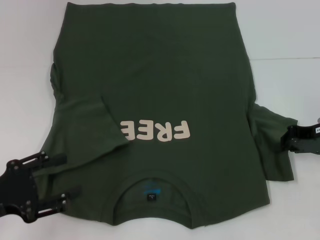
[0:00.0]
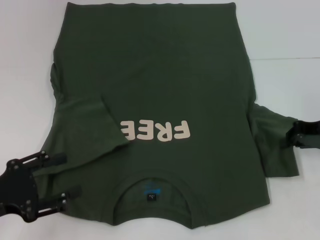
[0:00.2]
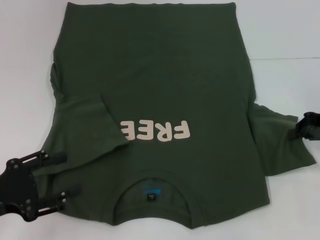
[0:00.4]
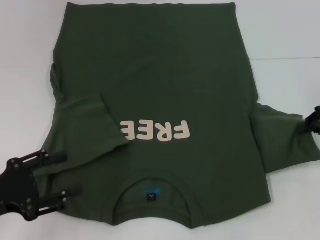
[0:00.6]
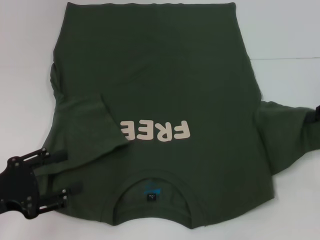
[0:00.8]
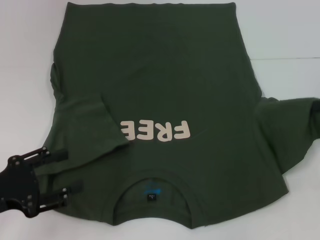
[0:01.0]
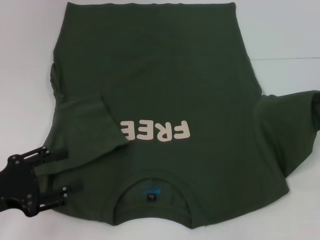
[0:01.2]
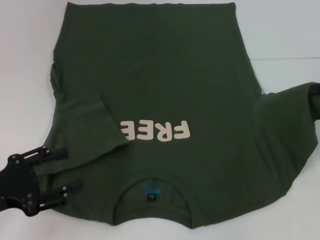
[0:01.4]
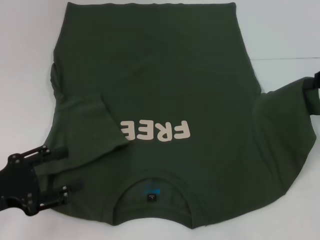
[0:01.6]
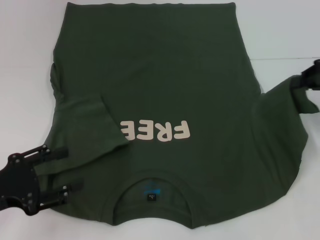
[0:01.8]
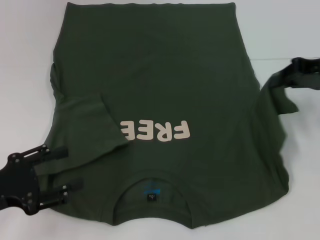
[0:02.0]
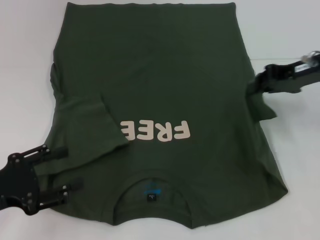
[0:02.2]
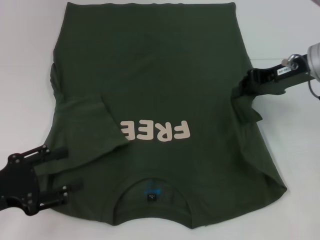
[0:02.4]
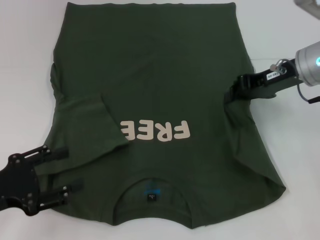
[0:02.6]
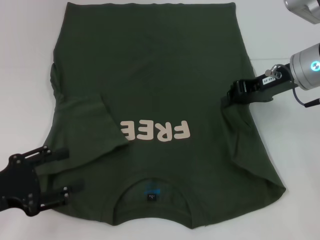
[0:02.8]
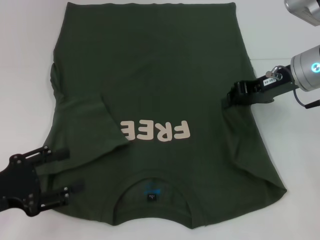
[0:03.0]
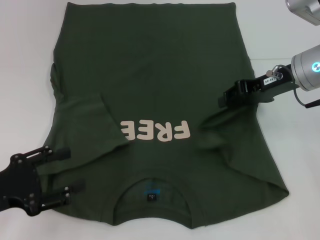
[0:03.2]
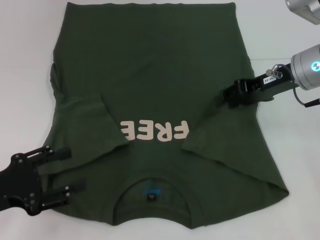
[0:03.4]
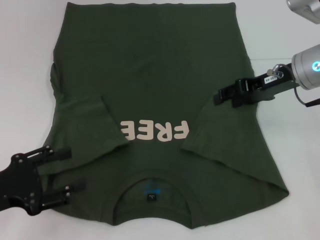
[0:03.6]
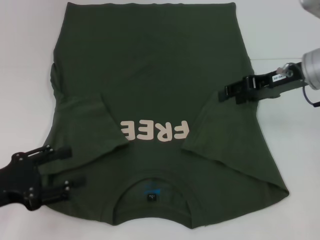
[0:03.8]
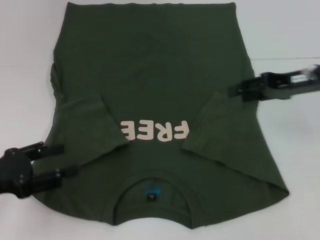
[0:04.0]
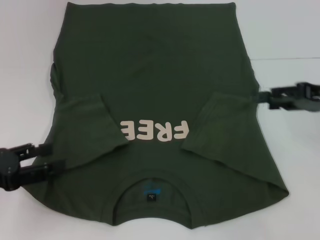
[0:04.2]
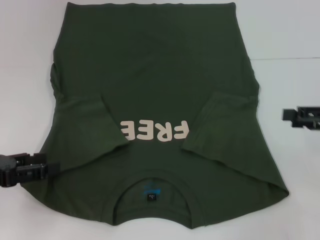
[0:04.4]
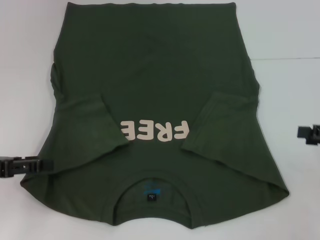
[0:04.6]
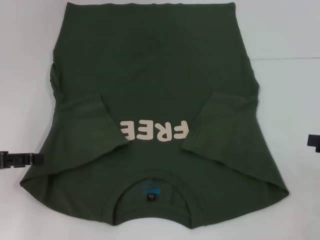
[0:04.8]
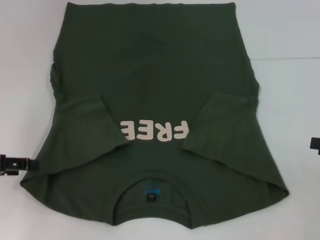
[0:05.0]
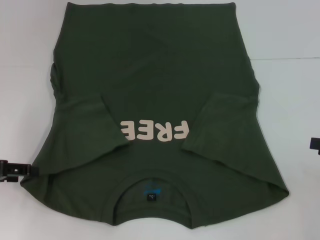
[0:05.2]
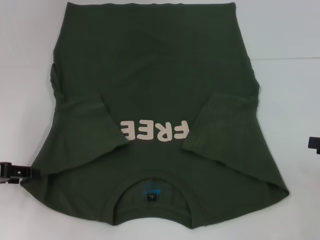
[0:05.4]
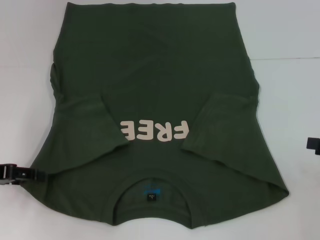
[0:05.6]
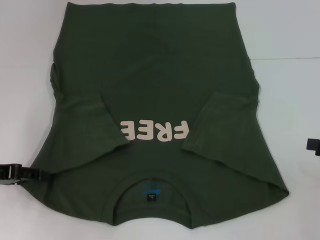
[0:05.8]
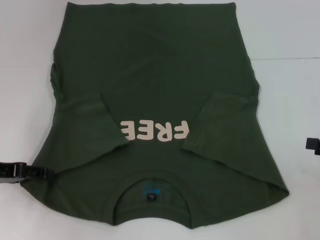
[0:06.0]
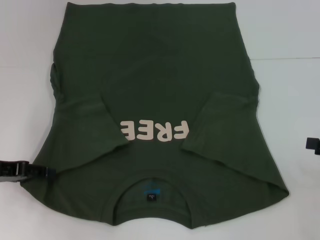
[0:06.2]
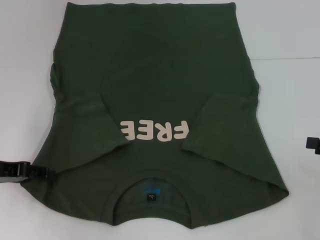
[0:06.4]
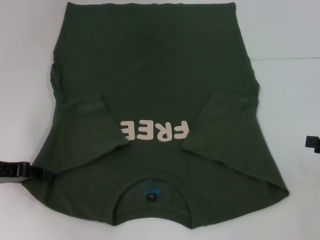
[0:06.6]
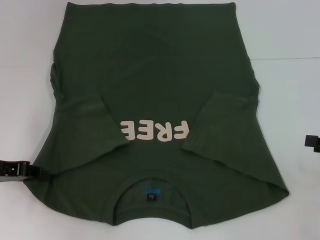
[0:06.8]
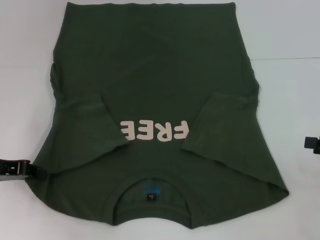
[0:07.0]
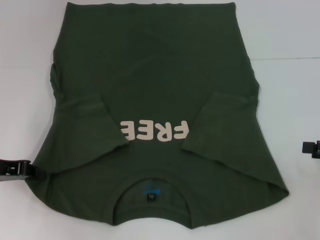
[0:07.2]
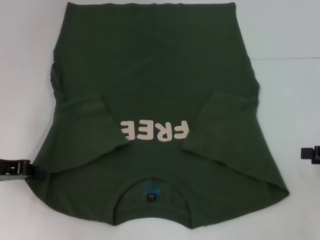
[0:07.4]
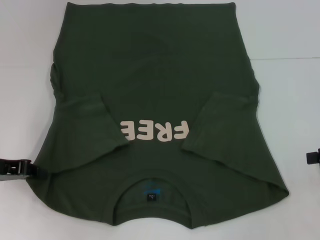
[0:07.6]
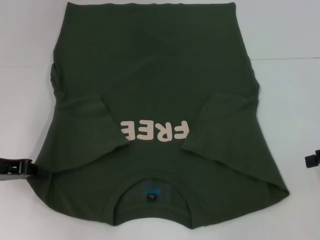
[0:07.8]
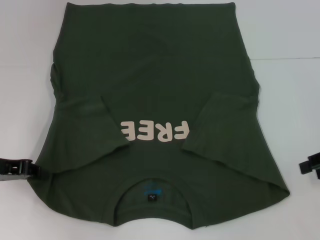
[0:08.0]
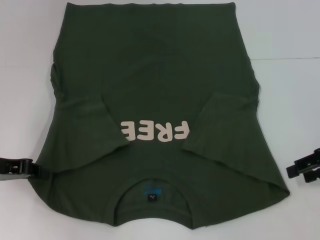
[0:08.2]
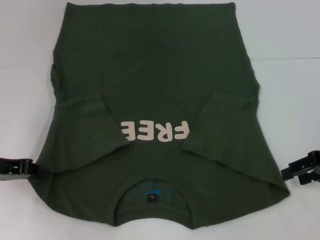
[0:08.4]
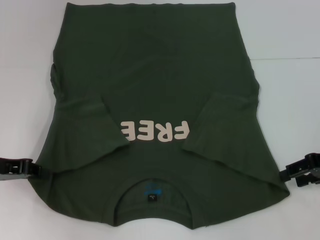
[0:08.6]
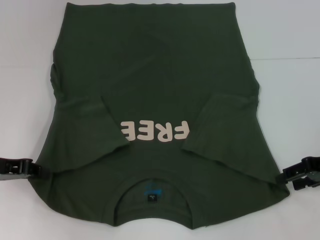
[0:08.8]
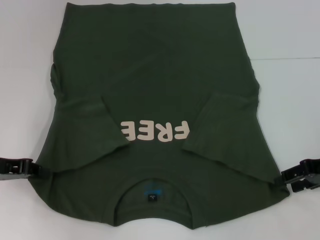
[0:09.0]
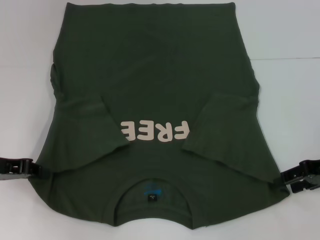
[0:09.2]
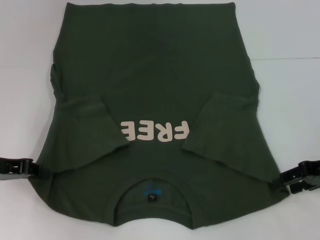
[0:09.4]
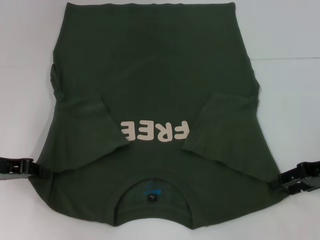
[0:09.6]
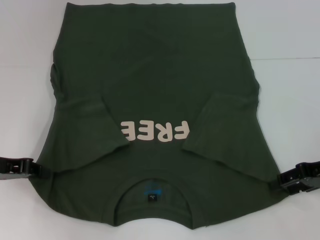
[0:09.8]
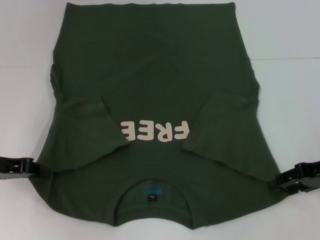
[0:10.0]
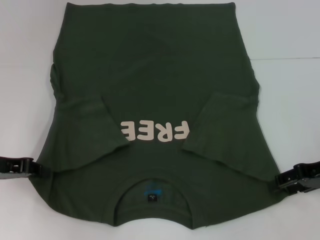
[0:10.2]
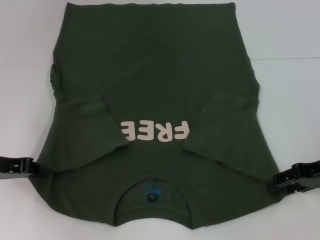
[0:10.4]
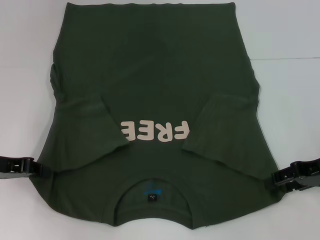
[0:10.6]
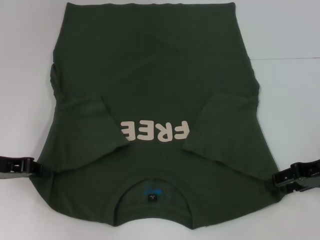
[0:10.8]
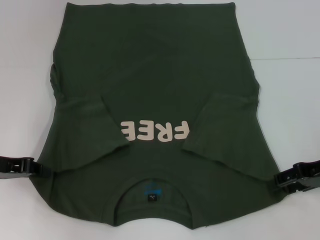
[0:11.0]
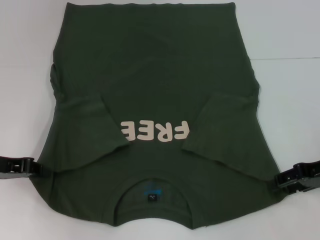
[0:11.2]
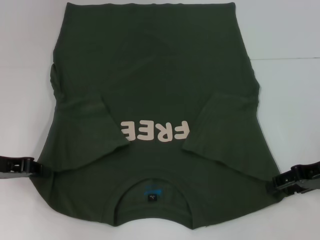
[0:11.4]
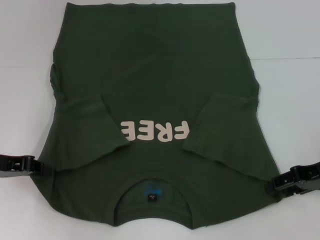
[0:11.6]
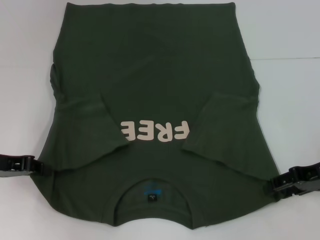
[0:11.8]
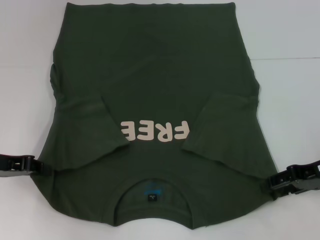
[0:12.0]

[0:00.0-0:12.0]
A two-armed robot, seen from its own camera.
Step, 0:00.0 to 0:03.4: Fold the bottom right sleeve with your right hand.
Step, 0:03.6 to 0:07.8: Grab the bottom left corner with your left hand.
0:00.0 to 0:01.6: The right gripper shifts about 10 cm upward.
0:01.6 to 0:03.0: The right gripper moves to the left, about 15 cm.
0:03.0 to 0:04.4: The left gripper ends up approximately 5 cm from where it was; the right gripper heads to the right and backward, covering roughly 15 cm, and opens.
0:04.4 to 0:06.0: The left gripper heads forward, covering about 5 cm. Meanwhile the right gripper changes place by some 5 cm.
0:06.0 to 0:07.6: The left gripper closes.
0:07.6 to 0:09.0: The right gripper is displaced to the left by roughly 5 cm.
0:09.0 to 0:10.4: Both grippers stay about where they are.
0:10.4 to 0:12.0: Both grippers stay put.

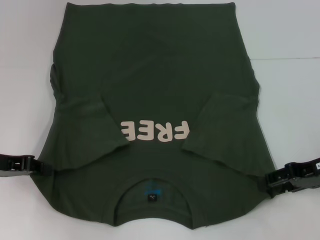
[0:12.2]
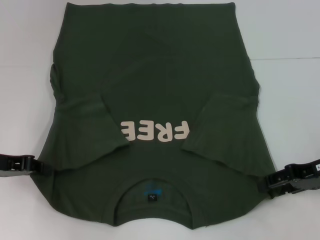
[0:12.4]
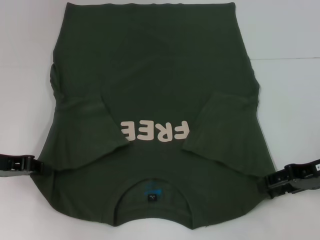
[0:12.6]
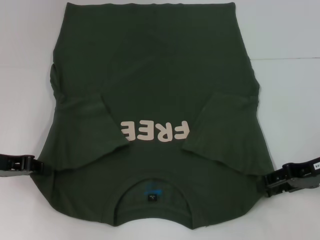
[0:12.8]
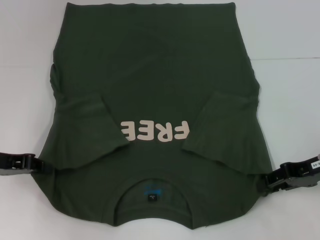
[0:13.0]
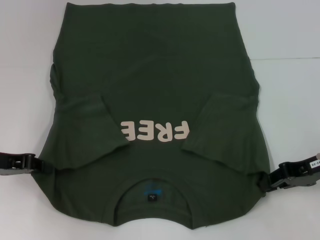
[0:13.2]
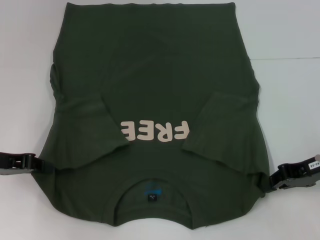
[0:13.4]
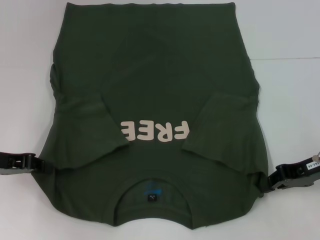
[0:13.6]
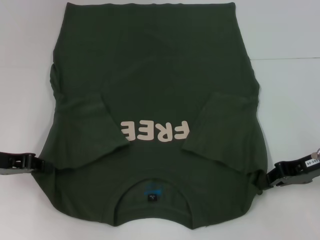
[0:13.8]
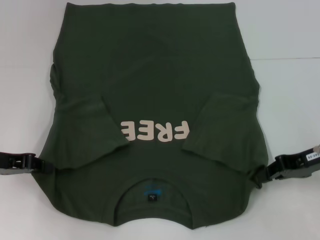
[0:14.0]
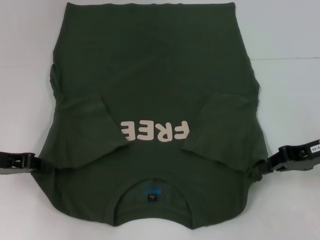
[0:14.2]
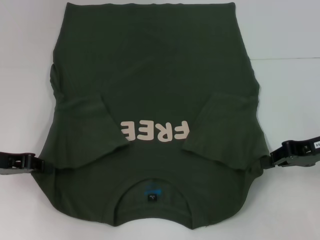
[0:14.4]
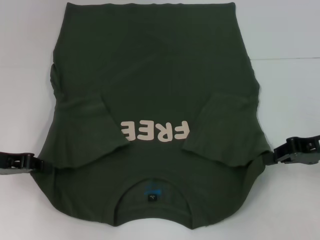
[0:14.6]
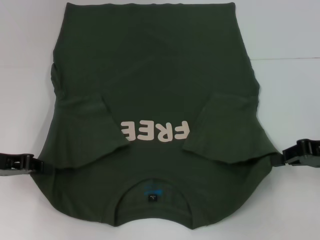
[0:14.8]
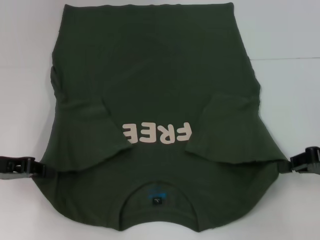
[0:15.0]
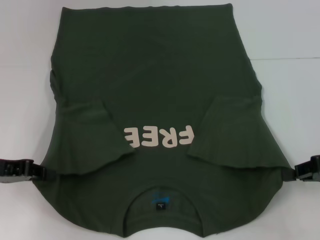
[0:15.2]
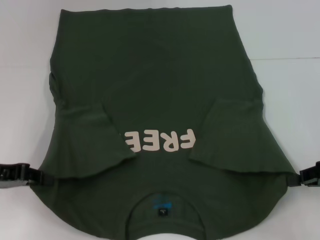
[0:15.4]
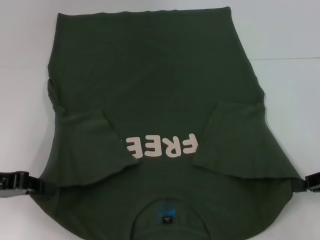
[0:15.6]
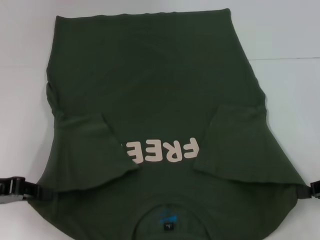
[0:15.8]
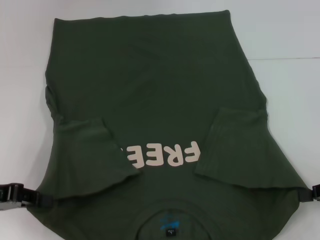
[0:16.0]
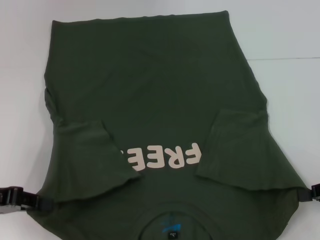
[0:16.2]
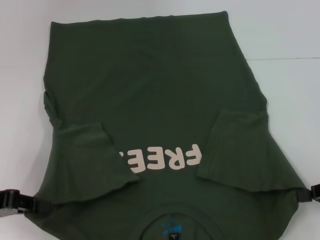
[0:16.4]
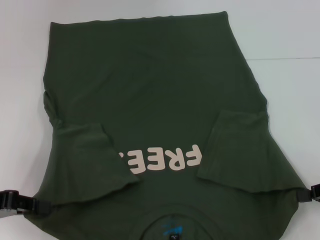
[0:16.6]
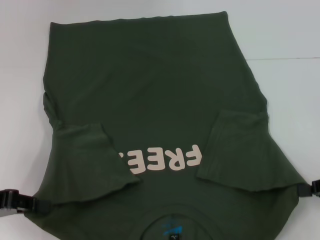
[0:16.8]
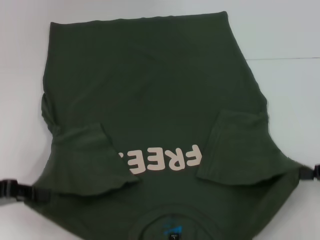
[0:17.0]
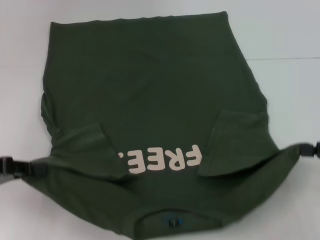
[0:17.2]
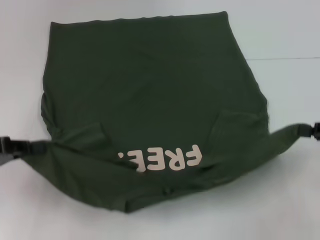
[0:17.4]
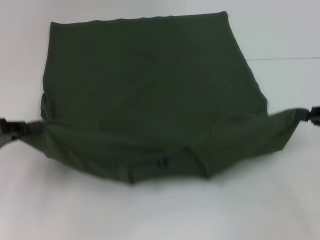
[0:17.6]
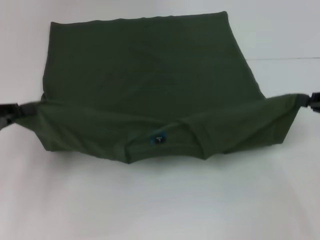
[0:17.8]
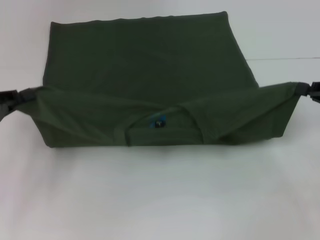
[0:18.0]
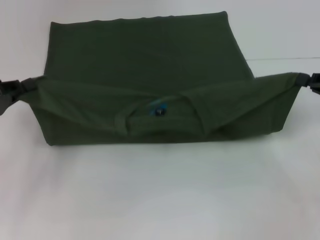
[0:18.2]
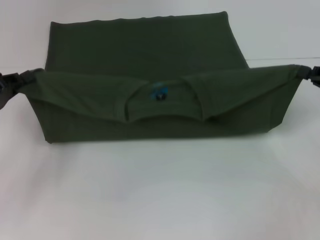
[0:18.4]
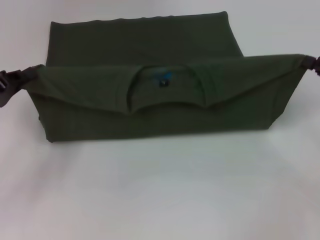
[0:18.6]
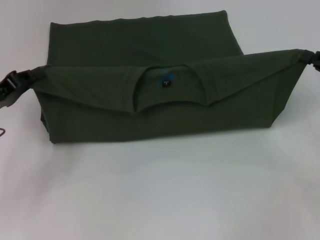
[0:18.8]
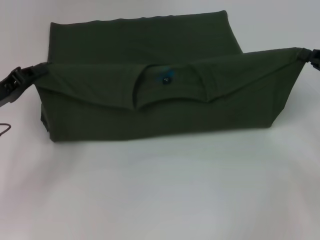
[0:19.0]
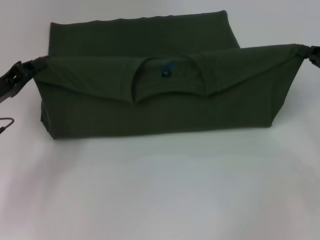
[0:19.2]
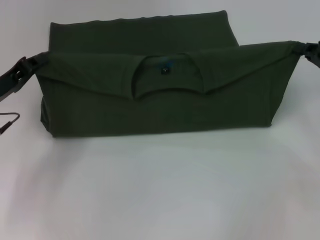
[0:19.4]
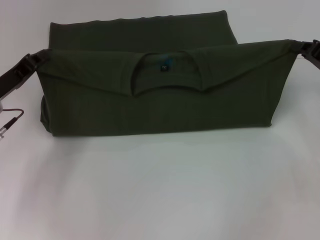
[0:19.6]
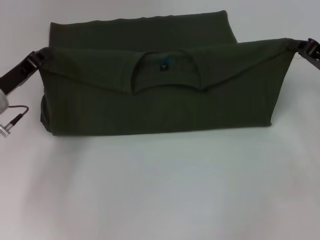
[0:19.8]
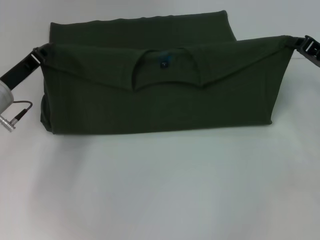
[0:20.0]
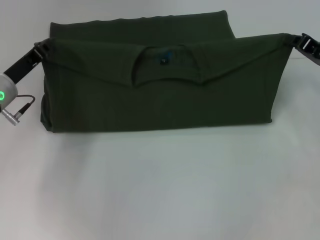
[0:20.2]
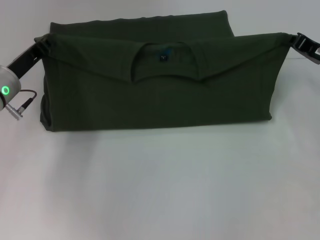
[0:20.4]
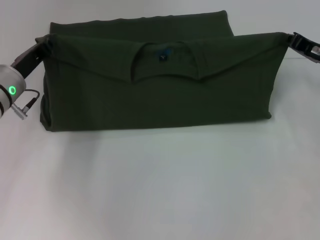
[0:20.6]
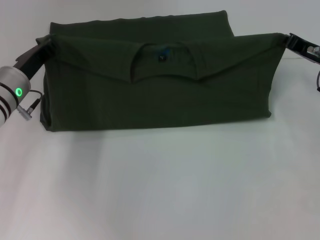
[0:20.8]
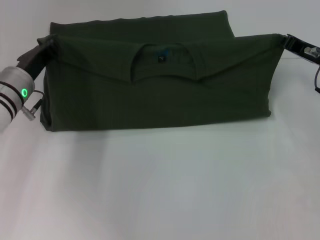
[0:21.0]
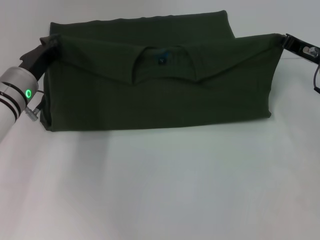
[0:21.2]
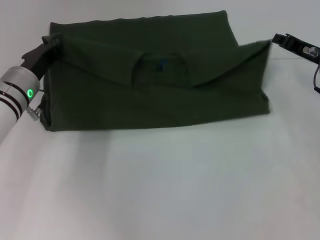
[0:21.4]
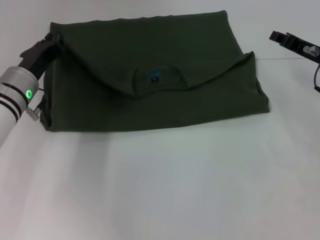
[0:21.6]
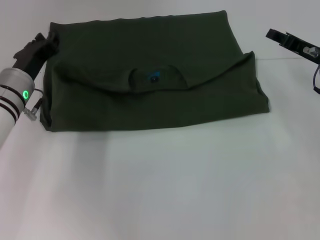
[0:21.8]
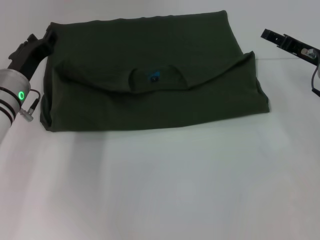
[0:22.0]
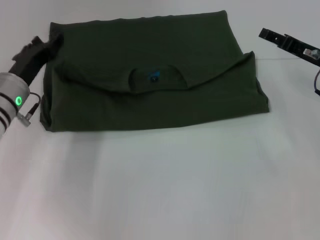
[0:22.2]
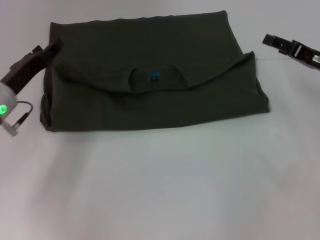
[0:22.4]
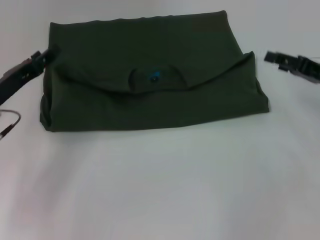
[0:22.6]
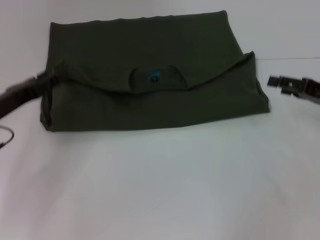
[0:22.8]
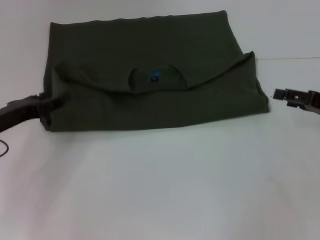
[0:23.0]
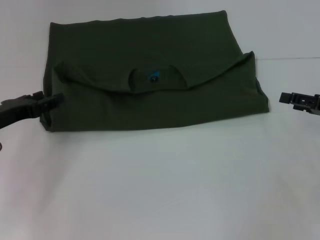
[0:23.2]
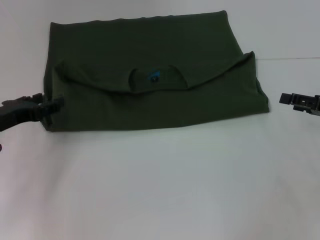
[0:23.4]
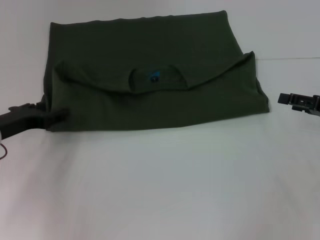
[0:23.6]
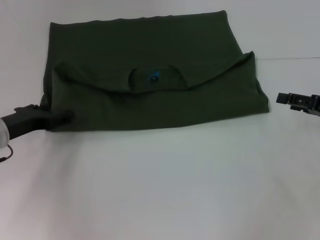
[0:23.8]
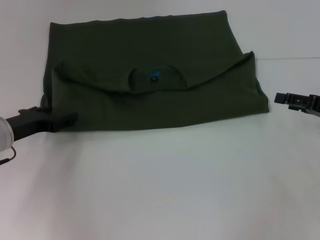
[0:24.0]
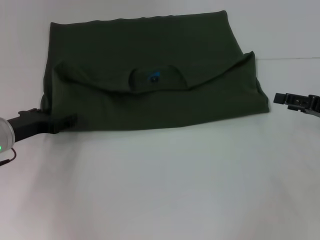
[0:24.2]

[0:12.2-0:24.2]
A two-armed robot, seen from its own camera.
Step, 0:13.8 to 0:21.8: Fold the clothes with your left hand.
Step, 0:13.8 to 0:21.8: Fold the clothes with your right hand.
0:12.2 to 0:13.8: The right gripper closes its fingers.
0:13.8 to 0:15.2: The right gripper travels to the right by about 5 cm.
0:15.2 to 0:16.6: The left gripper shifts by roughly 5 cm.
0:16.6 to 0:18.2: The two grippers go roughly 5 cm forward.
0:18.2 to 0:19.8: The right gripper moves forward, approximately 5 cm. Meanwhile the left gripper travels to the right and forward by about 10 cm.
0:19.8 to 0:21.2: The left gripper changes place by roughly 5 cm.
0:21.2 to 0:22.6: The left gripper shifts roughly 10 cm backward and to the left, and opens up. Meanwhile the right gripper changes place by about 5 cm, and opens up.
